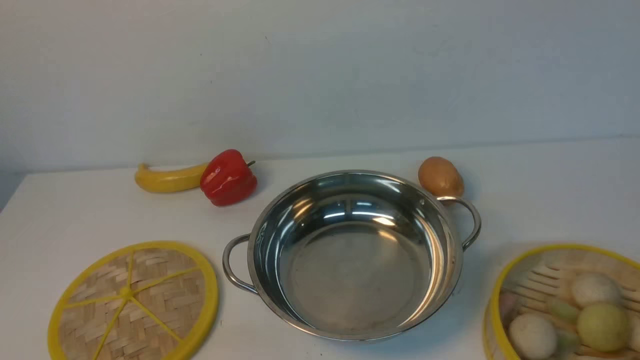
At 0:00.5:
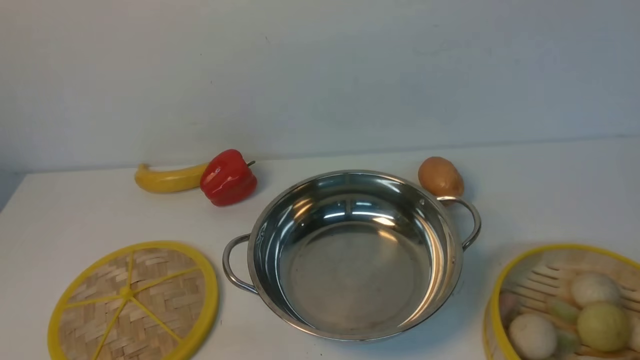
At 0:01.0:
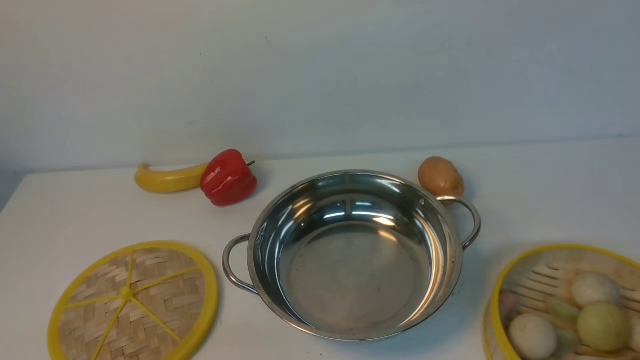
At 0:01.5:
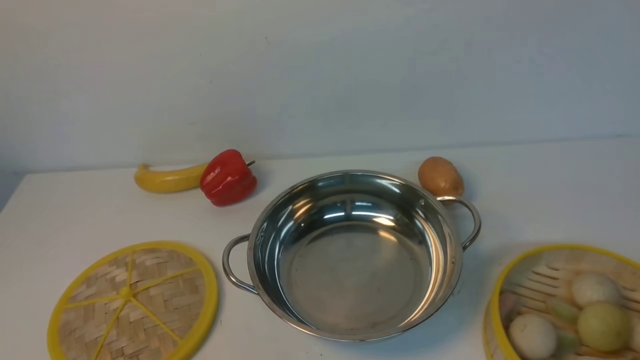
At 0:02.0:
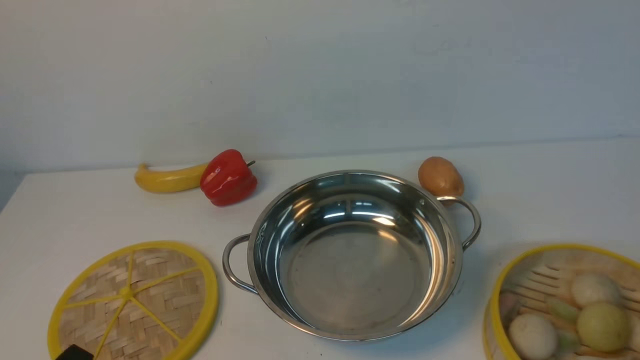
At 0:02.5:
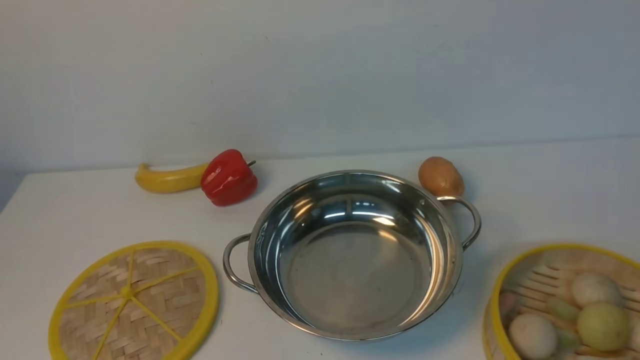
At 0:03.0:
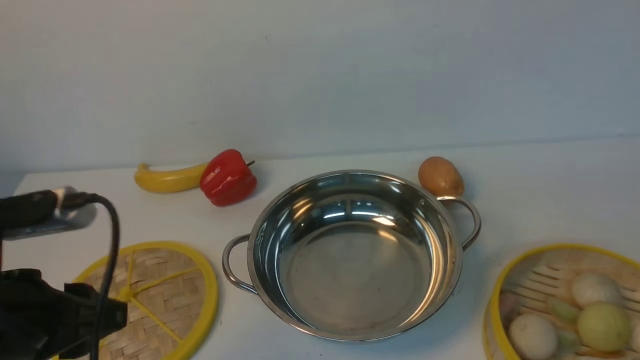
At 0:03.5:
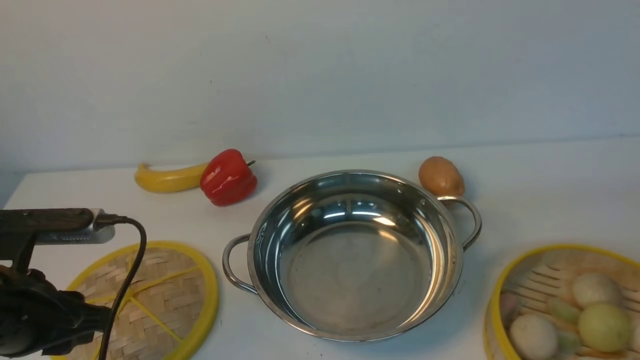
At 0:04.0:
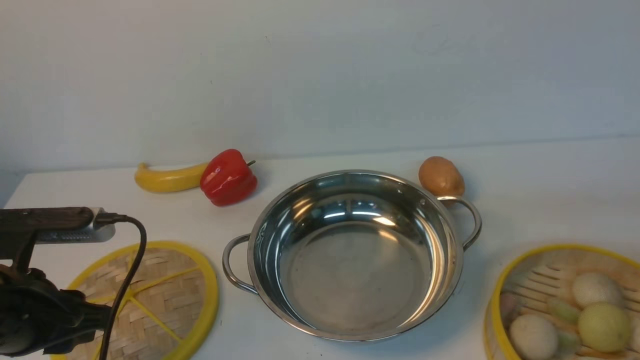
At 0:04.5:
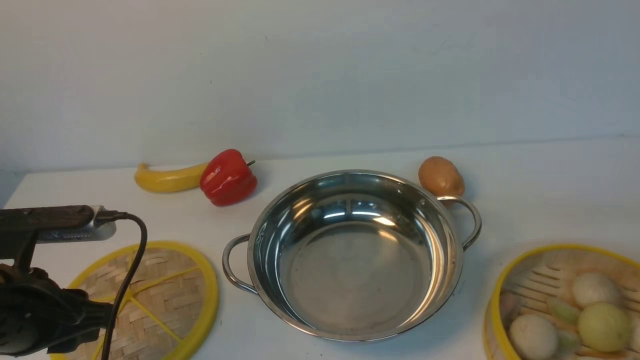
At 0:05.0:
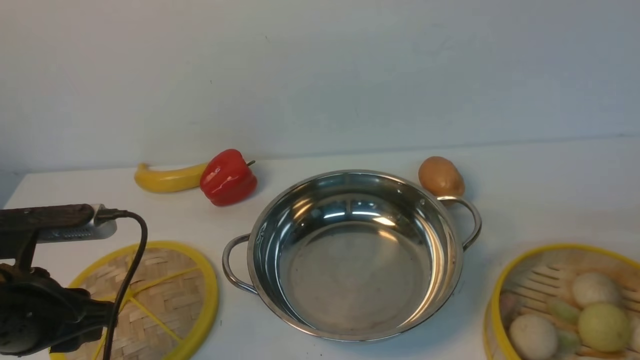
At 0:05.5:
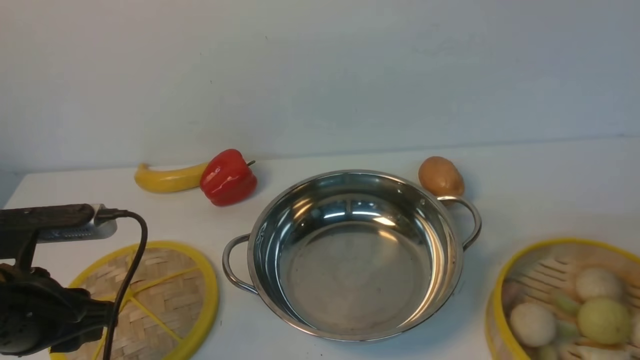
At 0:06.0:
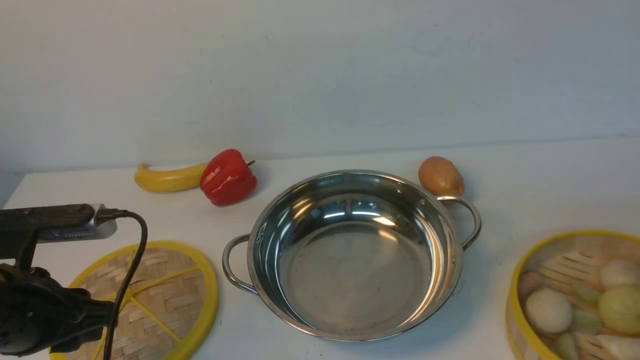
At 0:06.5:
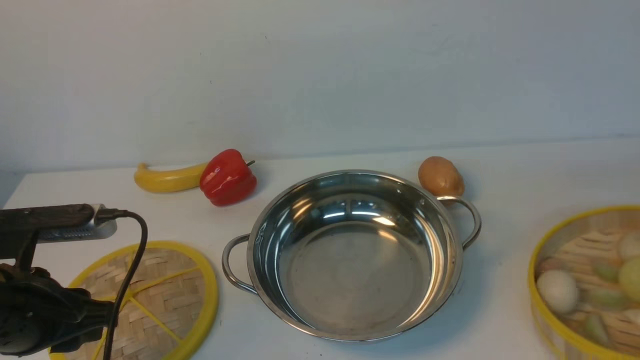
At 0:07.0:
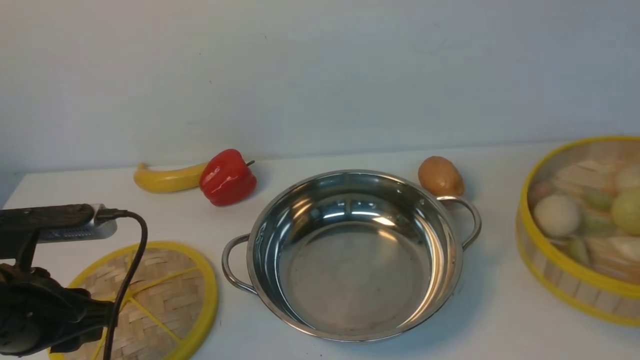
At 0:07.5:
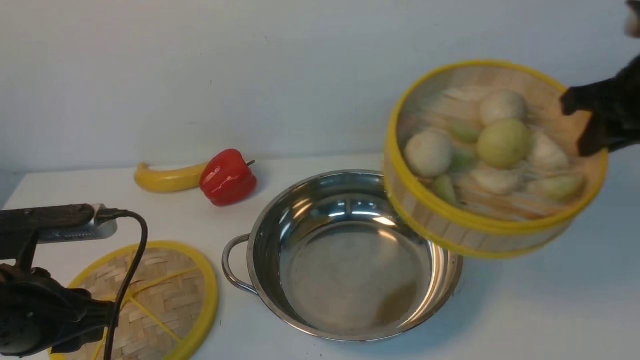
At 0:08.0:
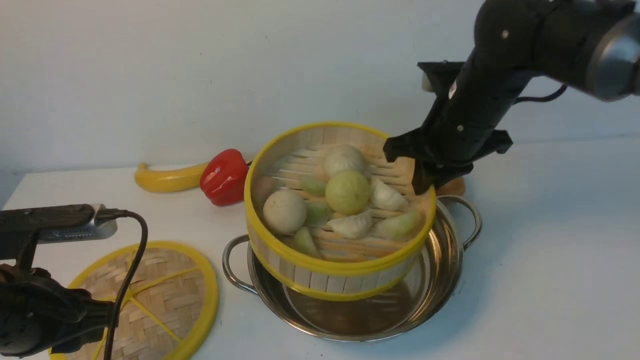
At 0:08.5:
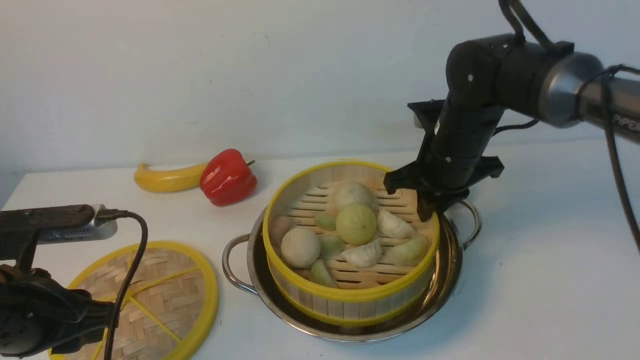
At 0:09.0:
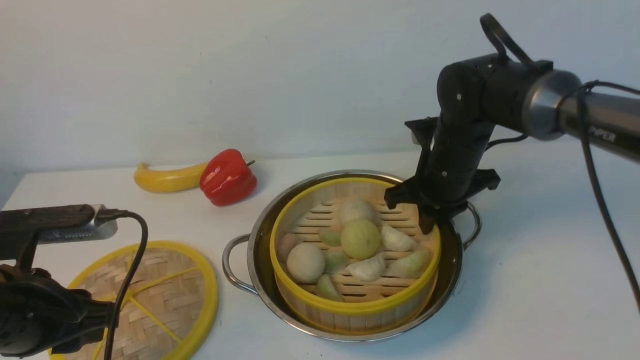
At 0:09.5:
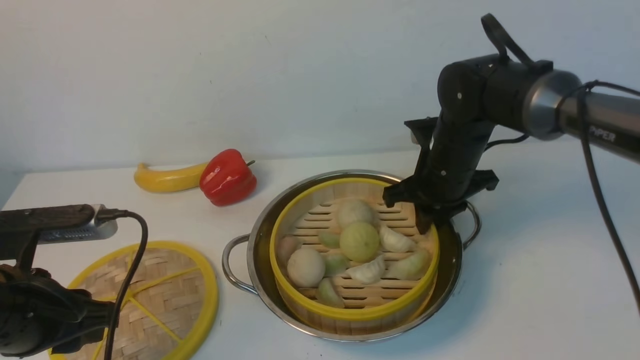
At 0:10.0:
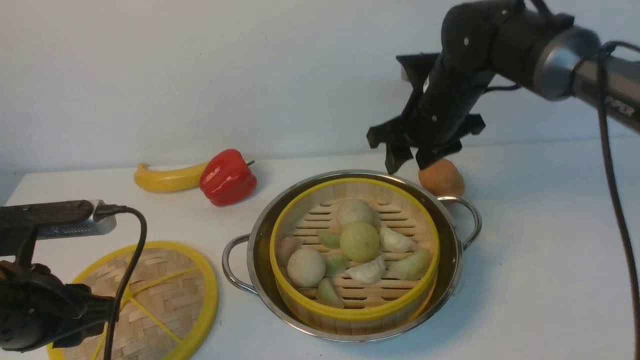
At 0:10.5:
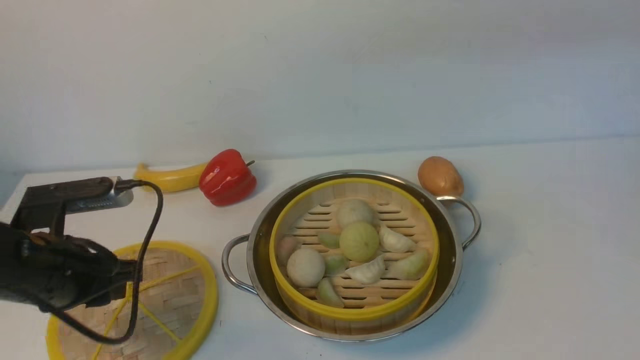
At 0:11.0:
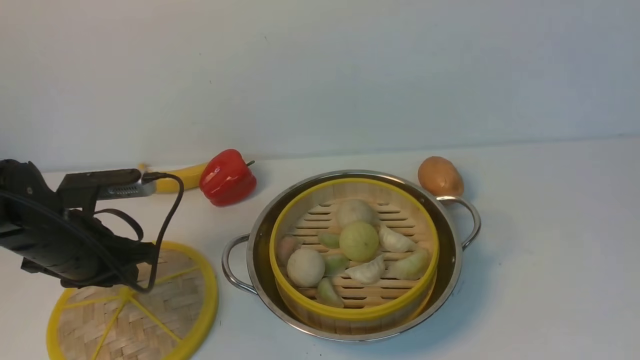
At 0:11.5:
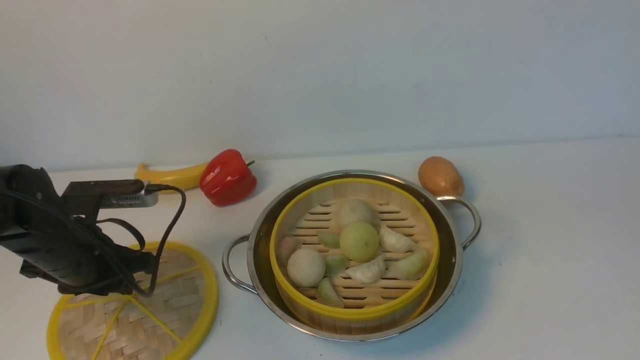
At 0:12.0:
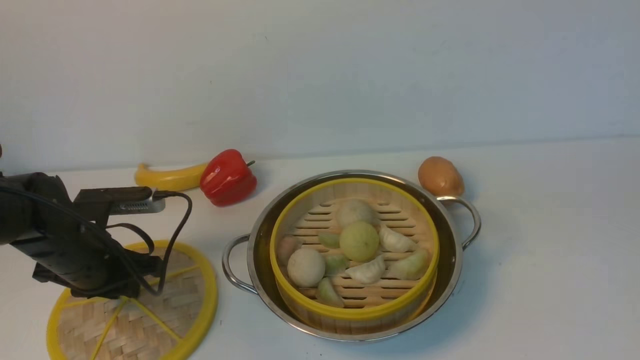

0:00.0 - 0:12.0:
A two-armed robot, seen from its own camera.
Task of the whole recording: place the steamer in the pot on the white table, and put the lid on the steamer.
Step, 0:00.0 - 0:06.5: use the right arm to lift the steamer closest to it.
Step, 0:07.0 - 0:10.0: use the right arm to put the steamer into the iron steamer pot in the middle.
0:02.0 - 0:04.0: The left gripper travels forward by roughly 15 cm.
0:04.0 - 0:06.0: The right gripper ends up about 5 cm from where it was, and closes up.
0:06.0 - 0:08.0: The right gripper travels to the left and forward by about 30 cm.
0:08.0 - 0:10.0: The right gripper goes downward and returns, about 5 cm each way, and opens its fingers.
0:10.0 - 0:12.0: The left gripper travels forward and downward by some 15 cm, while the right gripper heads backward, to the right and upward, covering approximately 50 cm.

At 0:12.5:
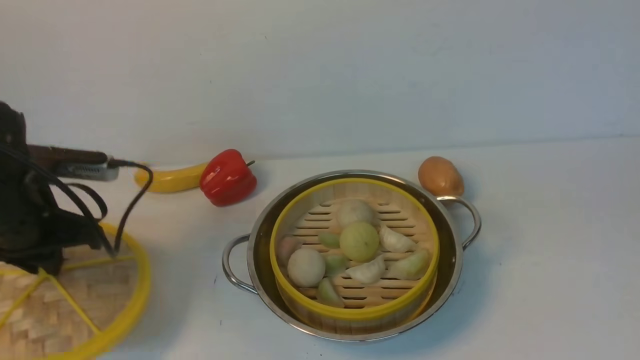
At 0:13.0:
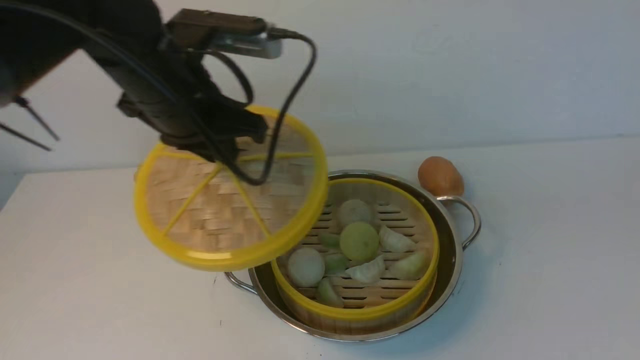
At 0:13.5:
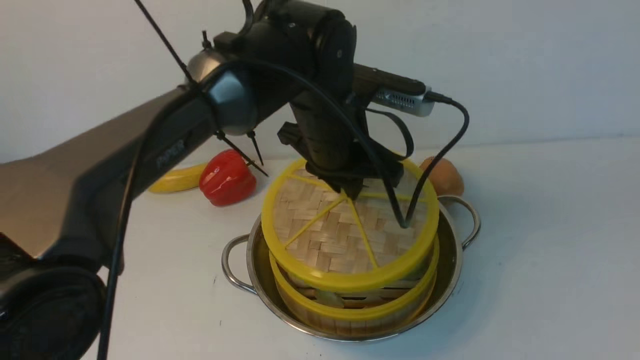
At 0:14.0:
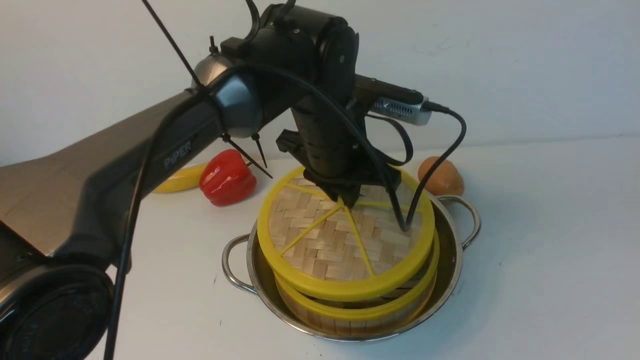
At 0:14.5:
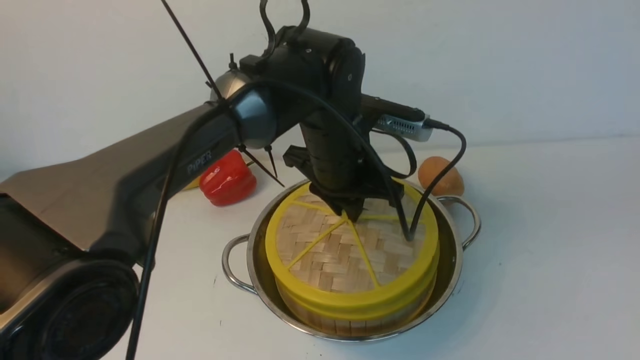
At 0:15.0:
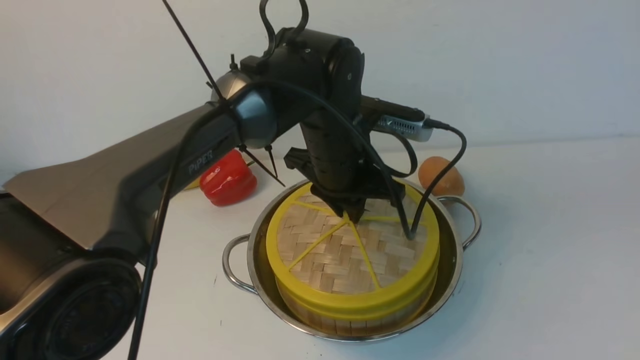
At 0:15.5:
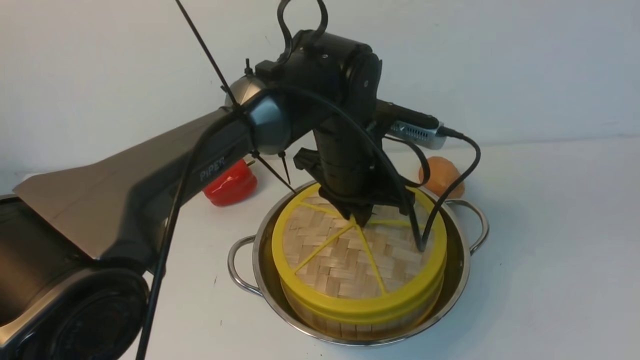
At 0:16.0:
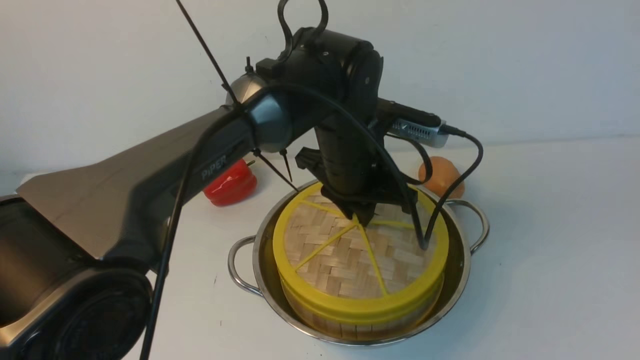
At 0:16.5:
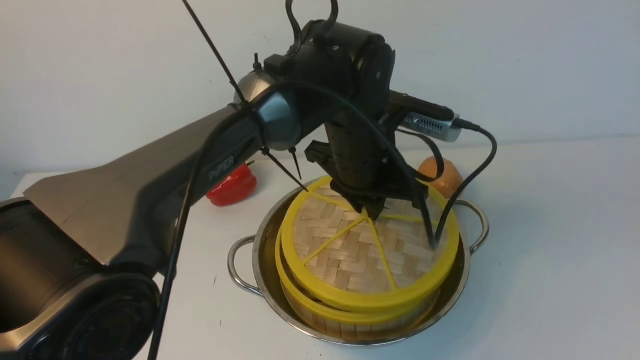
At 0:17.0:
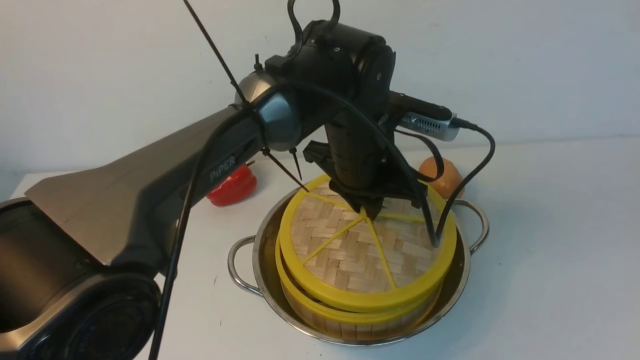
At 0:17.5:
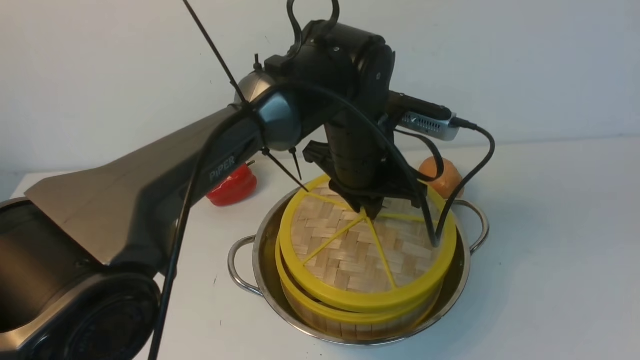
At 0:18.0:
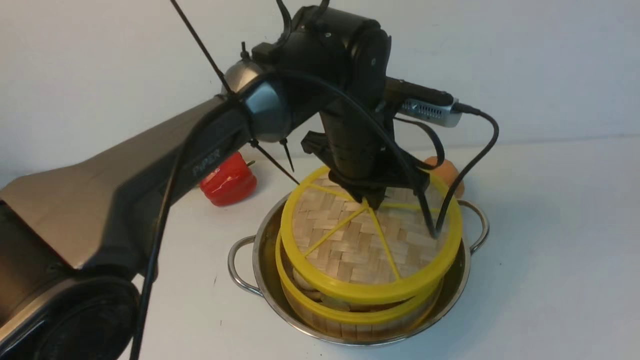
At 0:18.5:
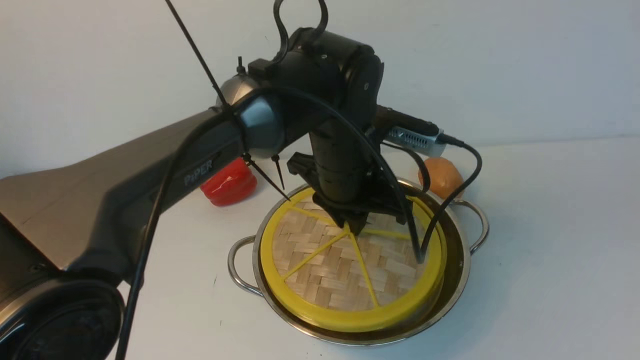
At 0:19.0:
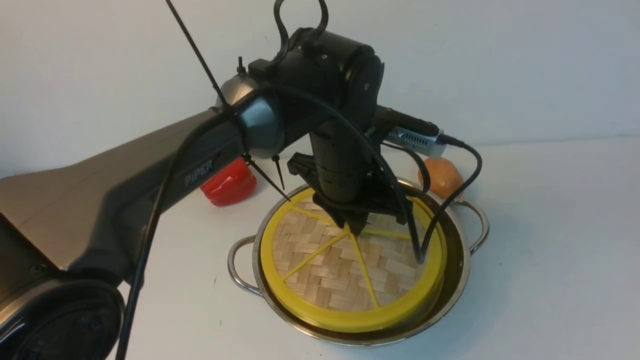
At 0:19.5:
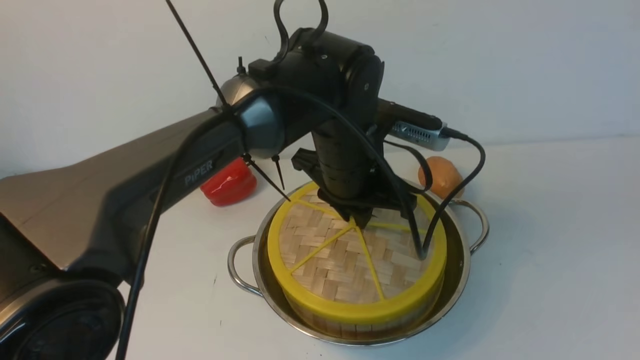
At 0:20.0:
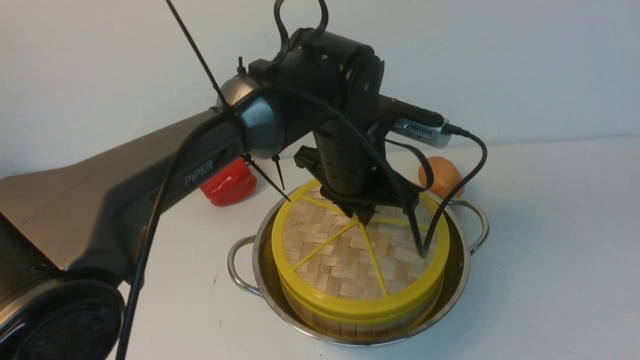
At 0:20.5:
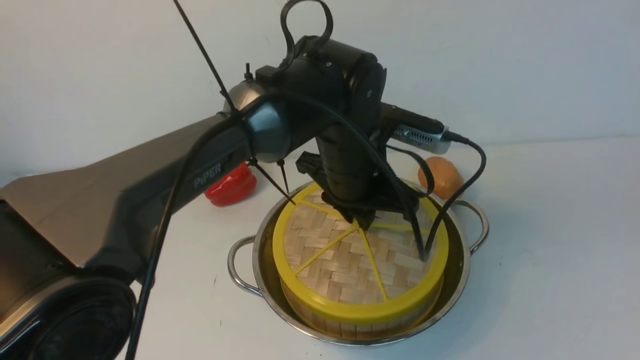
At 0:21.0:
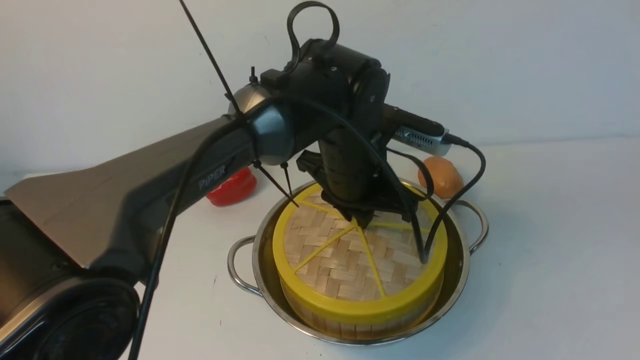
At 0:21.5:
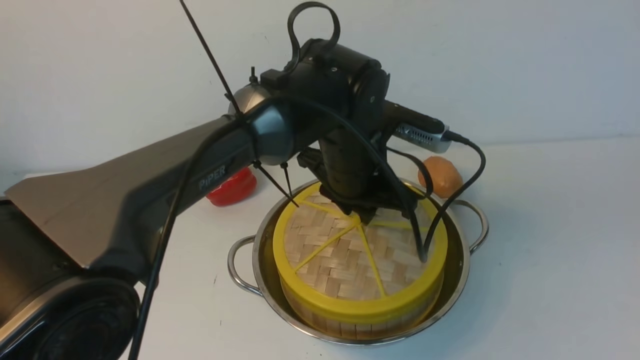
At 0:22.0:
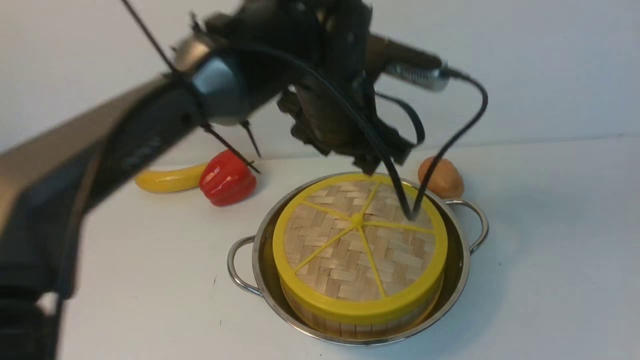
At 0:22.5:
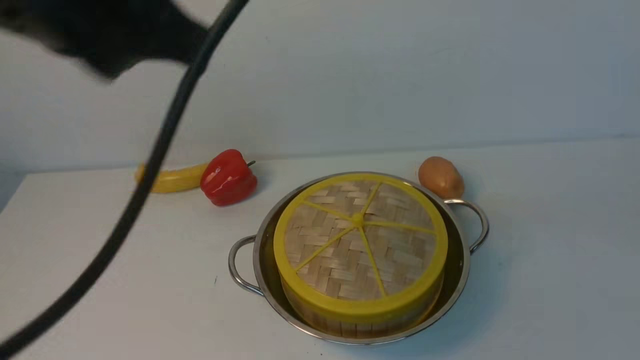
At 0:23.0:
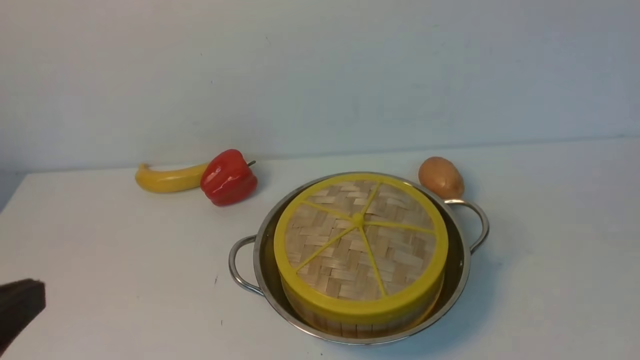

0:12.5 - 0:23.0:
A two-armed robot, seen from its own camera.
Task of the whole recording: place the steamer in the pot on the white table, and put the lid on the steamer.
Step, 0:13.0 - 0:22.0: use the left arm to place the steamer lid on the steamer.
0:12.5 - 0:14.5: The left gripper is displaced to the right by approximately 30 cm.
0:19.0 - 0:21.0: The grippers make only small movements.
0:21.0 - 0:23.0: The left gripper moves backward and to the left, about 40 cm, and closes. The right gripper goes some 10 cm downward, and closes up.
